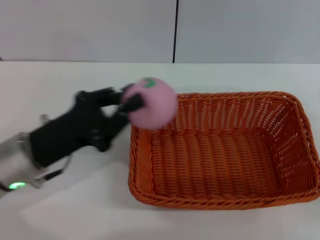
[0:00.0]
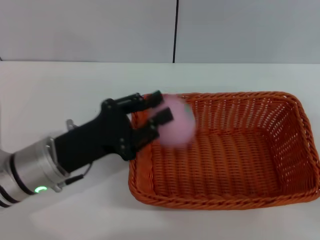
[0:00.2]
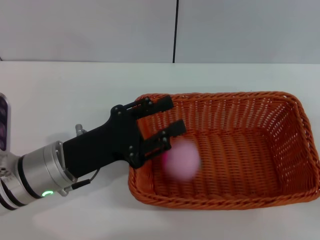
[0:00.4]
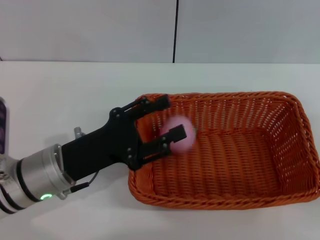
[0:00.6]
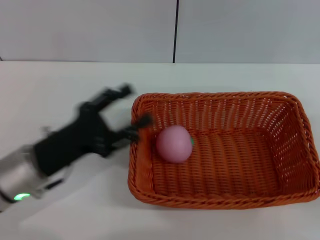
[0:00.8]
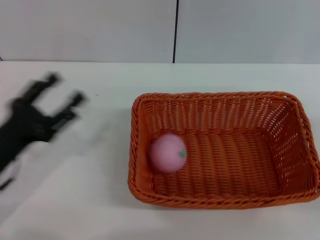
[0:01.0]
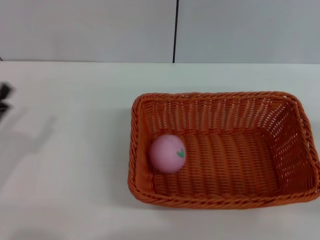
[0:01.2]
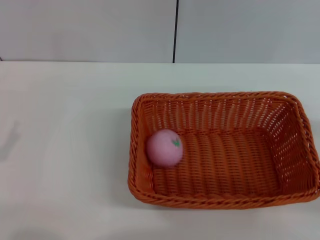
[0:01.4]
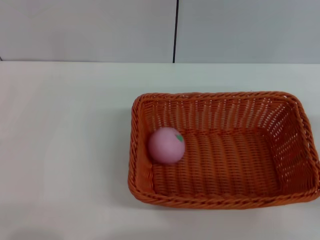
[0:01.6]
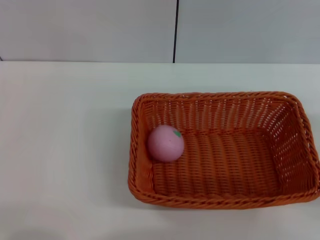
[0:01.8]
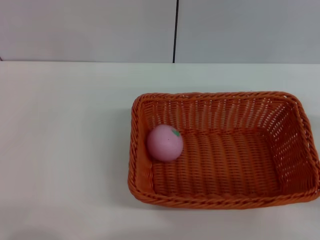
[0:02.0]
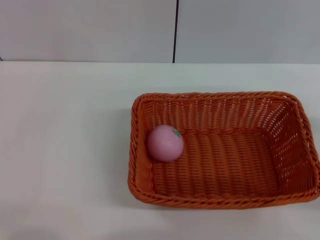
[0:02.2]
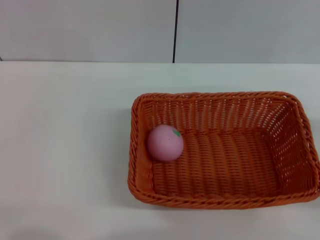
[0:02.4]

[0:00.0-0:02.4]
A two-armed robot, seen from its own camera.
Step, 0:00.0 to 0:00.6: Place the peach into the basket with the left gripper.
0:00.0 to 0:01.2: The left gripper is displaced to the left and backward by roughly 10 cm, and opens up.
0:01.2 to 0:02.4: The left gripper ends up some 5 cm from where it was.
